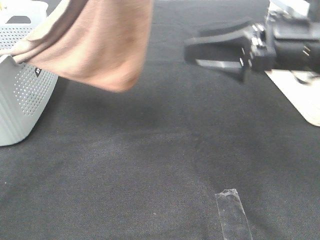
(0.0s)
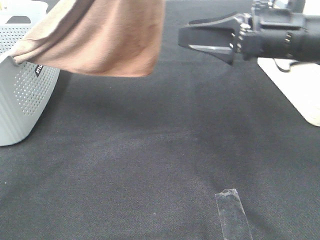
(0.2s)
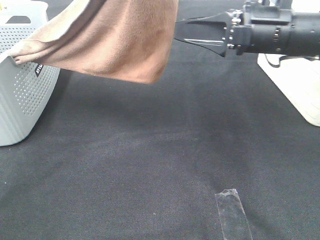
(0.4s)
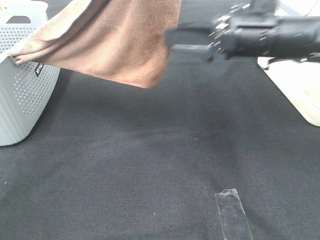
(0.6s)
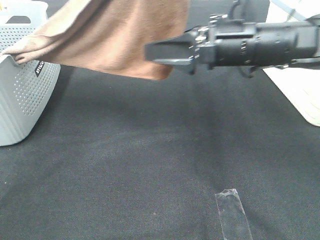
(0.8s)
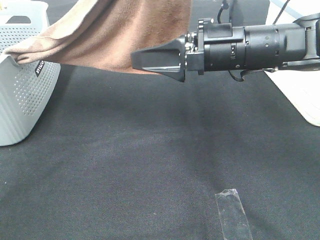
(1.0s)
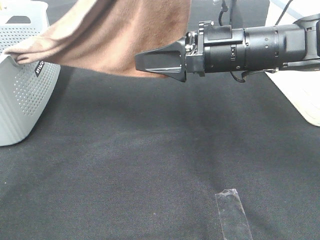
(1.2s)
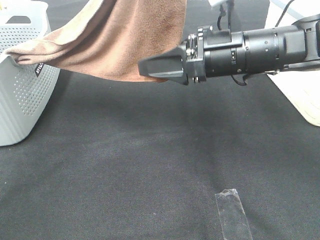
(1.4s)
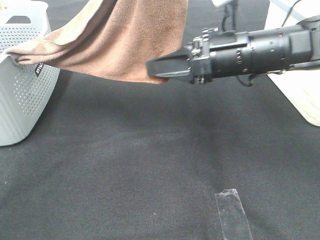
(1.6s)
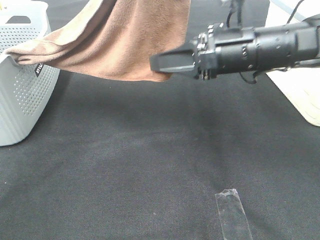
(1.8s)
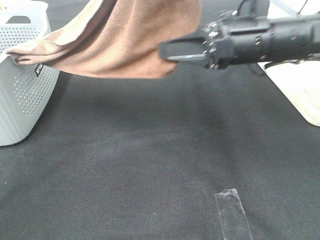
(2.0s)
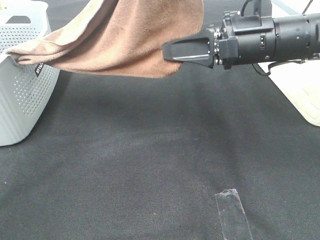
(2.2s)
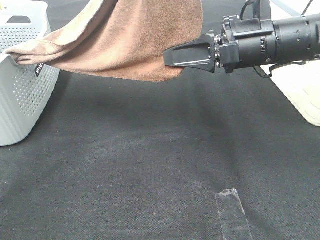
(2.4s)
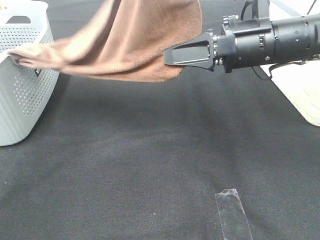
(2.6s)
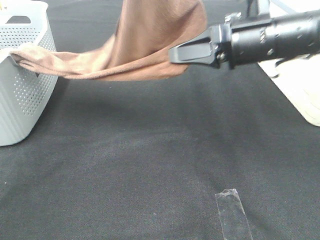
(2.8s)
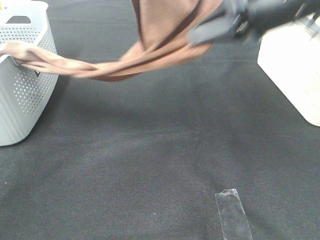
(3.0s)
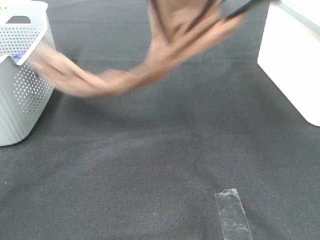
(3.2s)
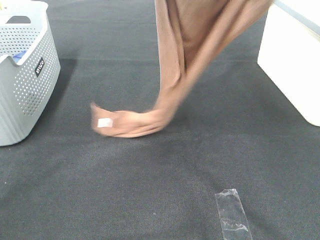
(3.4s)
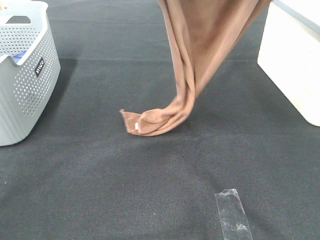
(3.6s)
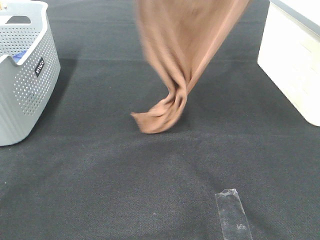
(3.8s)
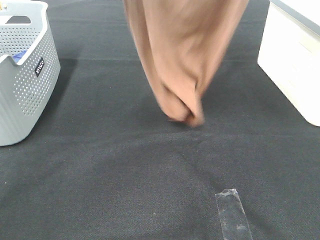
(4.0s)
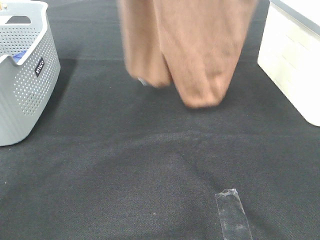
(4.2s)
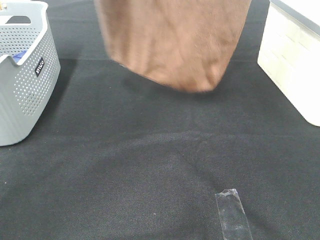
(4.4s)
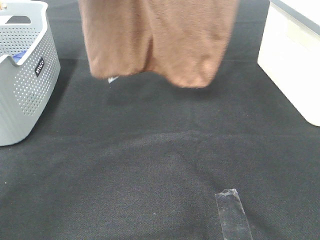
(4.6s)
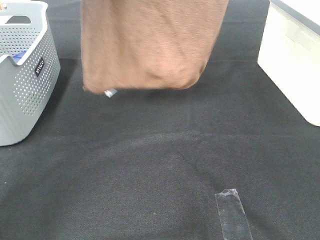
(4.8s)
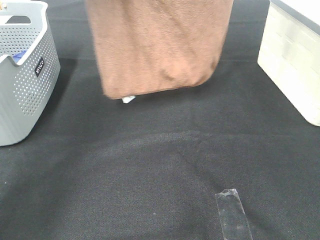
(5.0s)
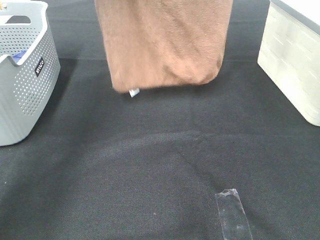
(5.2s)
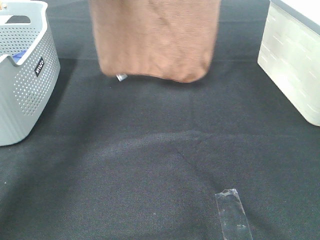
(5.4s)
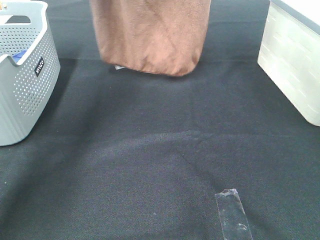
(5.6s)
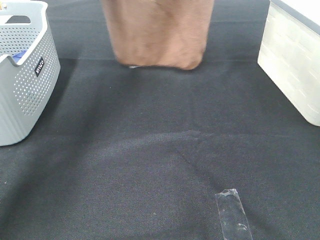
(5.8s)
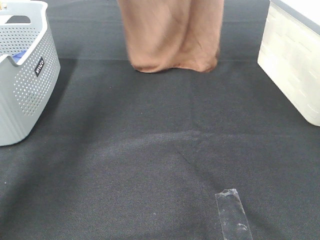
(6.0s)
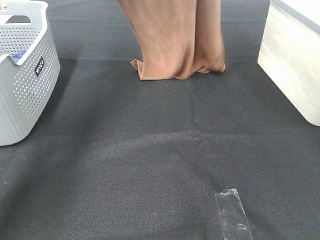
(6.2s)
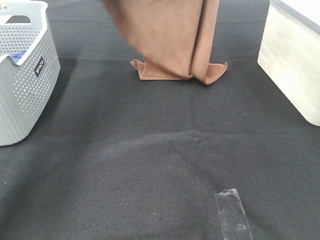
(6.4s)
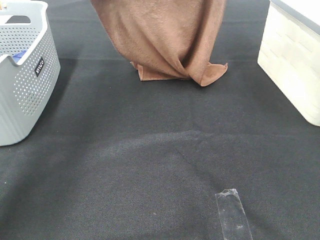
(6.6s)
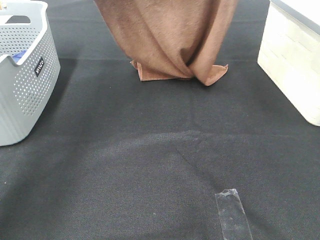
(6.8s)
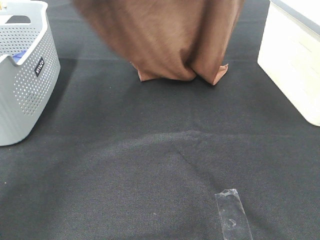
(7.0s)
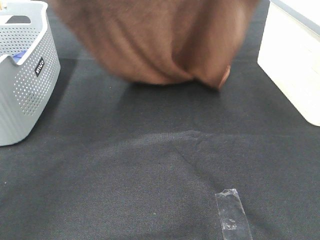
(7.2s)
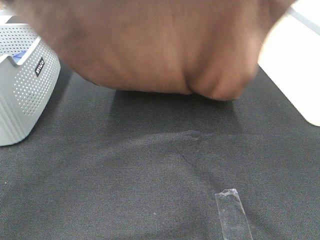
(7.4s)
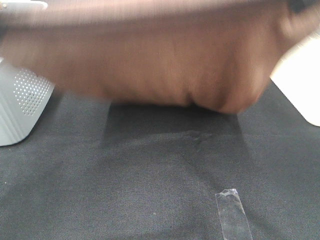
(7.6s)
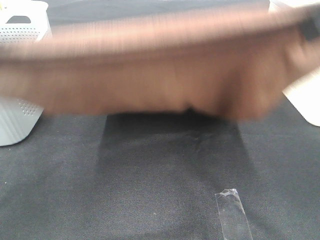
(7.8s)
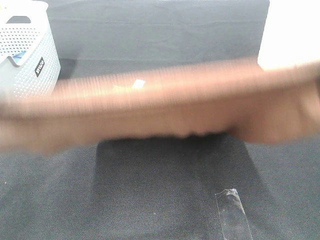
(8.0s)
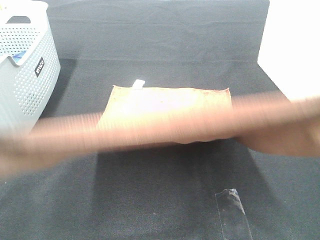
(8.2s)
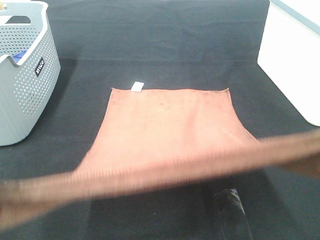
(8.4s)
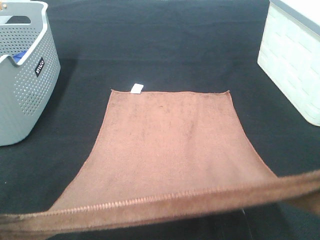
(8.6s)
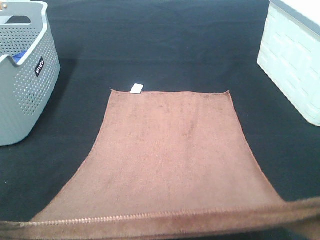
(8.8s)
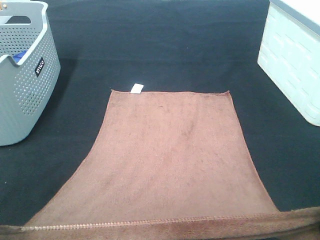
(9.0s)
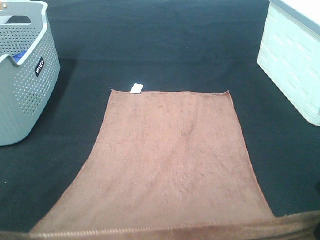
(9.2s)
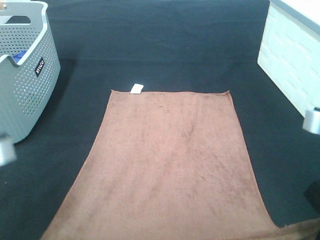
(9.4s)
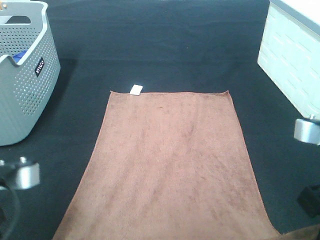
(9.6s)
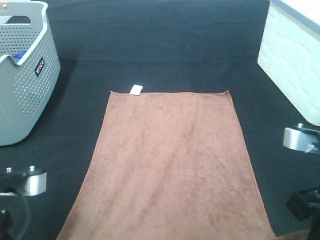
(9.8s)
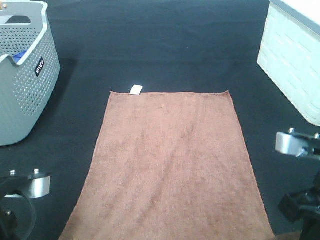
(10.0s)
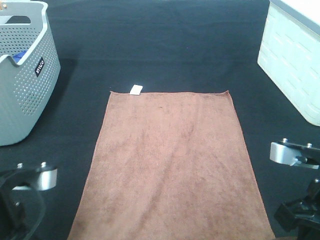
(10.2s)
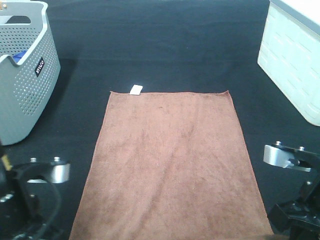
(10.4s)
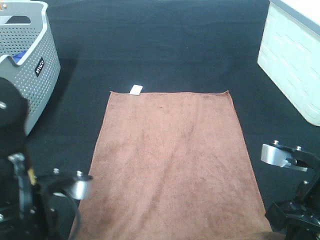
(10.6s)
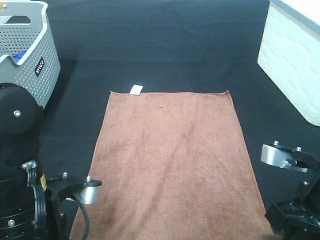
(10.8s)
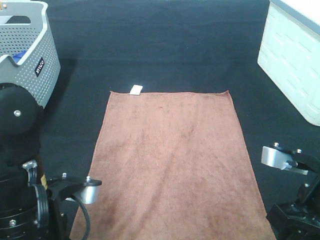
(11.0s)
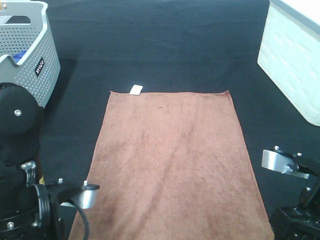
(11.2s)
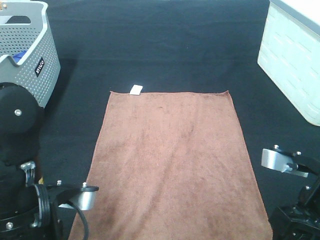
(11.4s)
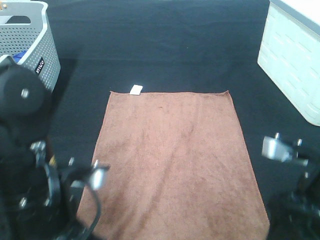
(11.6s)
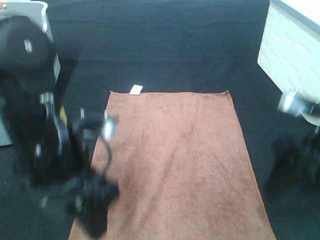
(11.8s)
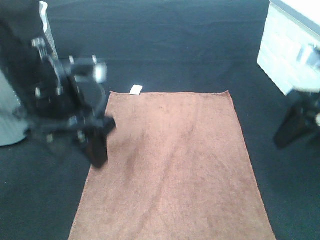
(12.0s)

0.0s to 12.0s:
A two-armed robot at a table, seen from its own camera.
Task of the whole recording: Remove the towel and place it.
Step, 0.0s to 2.2s: Right hand: grab a corner of the brown towel and straighten it.
Step, 2.4s to 7.2s: Left hand: spread the brown towel flat on the table.
Step, 2.4s to 7.2s: Right hand: spread the brown towel flat on the table.
0.0s to 1.6s: The right gripper shifts some 5 cm to the left, and closes.
1.6s to 3.0s: The right gripper goes about 10 cm upward, and closes.
3.0s to 4.4s: The left gripper heads upward, to the left and forward, covering roughly 10 cm; the right gripper moves upward, roughly 25 cm.
4.4s to 6.0s: The right gripper goes approximately 15 cm forward, downward and to the left. The left gripper travels forward and downward by about 20 cm.
6.0s to 7.6s: The grippers both shift backward by roughly 30 cm.
7.6s to 9.0s: The grippers both shift downward and backward by roughly 15 cm.
9.0s to 10.4s: The left gripper moves downward and to the right, some 10 cm, while the right gripper goes some 10 cm downward.
10.4s to 12.0s: Both grippers move forward and upward, roughly 10 cm. The right gripper opens up. Meanwhile the left gripper opens its fingers.

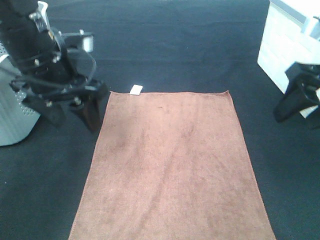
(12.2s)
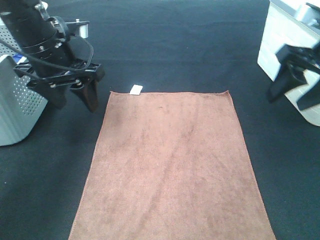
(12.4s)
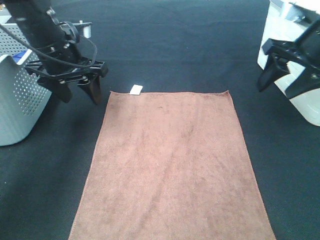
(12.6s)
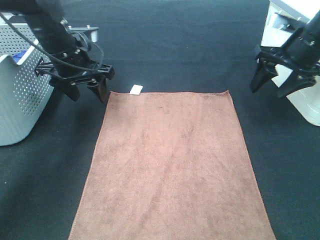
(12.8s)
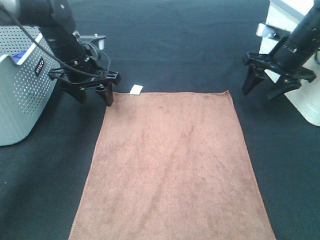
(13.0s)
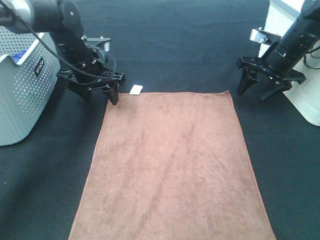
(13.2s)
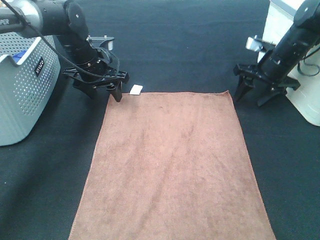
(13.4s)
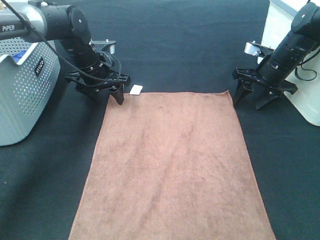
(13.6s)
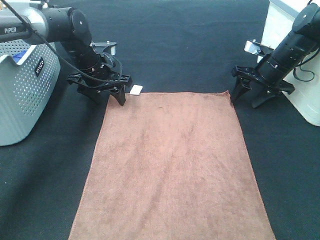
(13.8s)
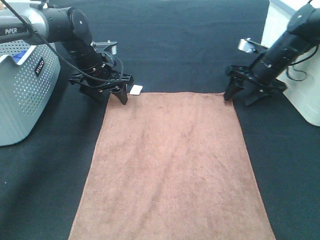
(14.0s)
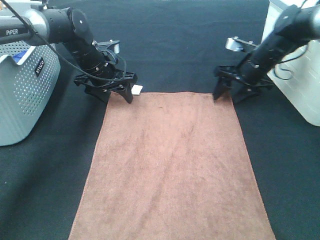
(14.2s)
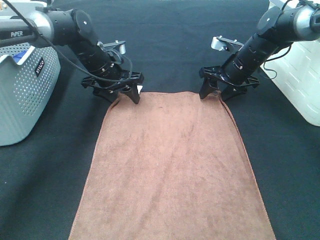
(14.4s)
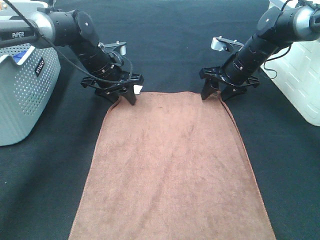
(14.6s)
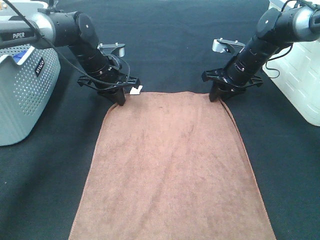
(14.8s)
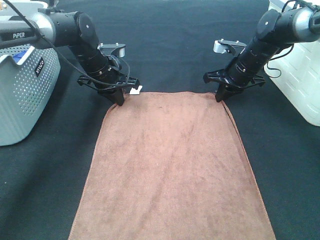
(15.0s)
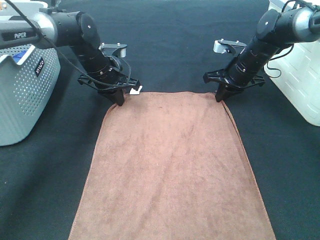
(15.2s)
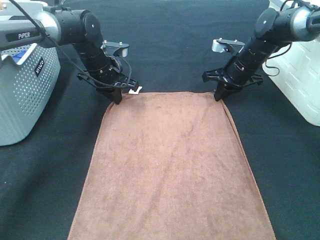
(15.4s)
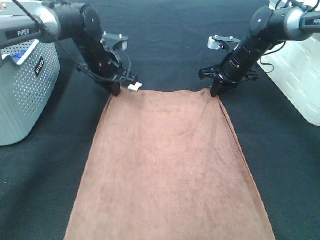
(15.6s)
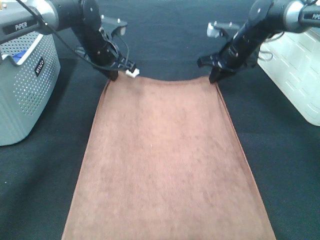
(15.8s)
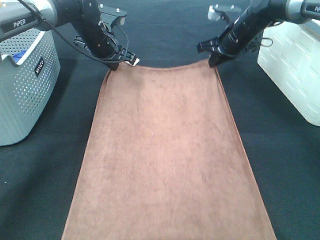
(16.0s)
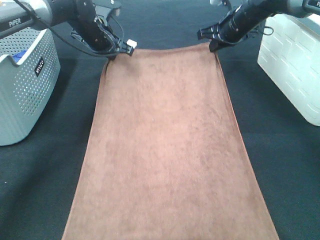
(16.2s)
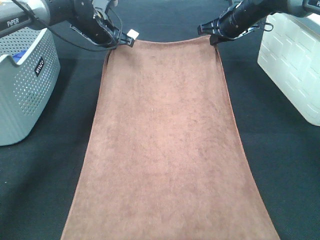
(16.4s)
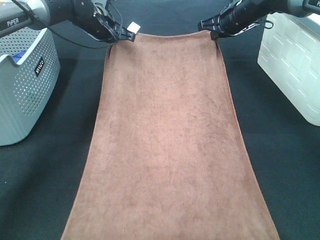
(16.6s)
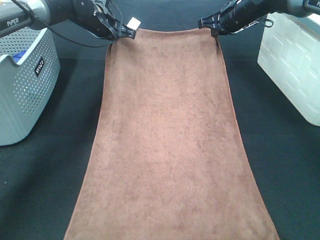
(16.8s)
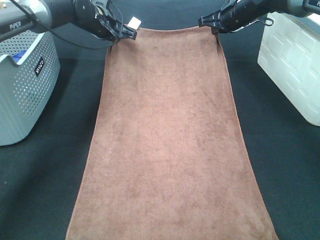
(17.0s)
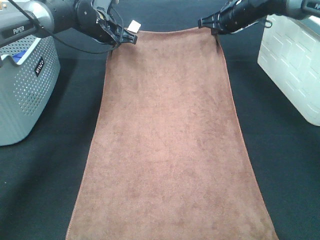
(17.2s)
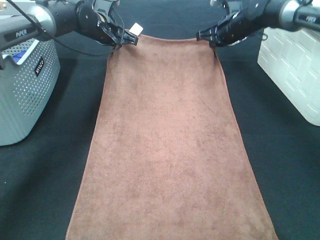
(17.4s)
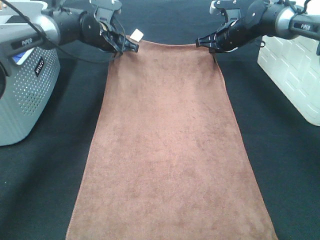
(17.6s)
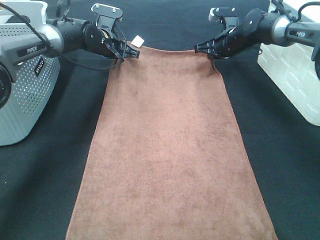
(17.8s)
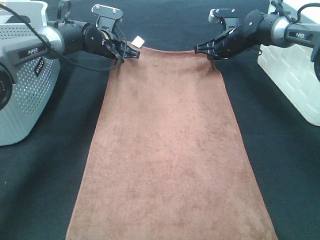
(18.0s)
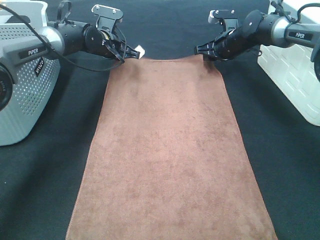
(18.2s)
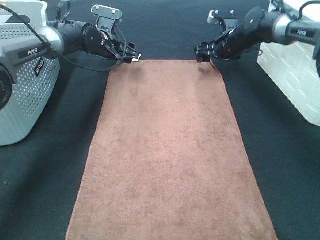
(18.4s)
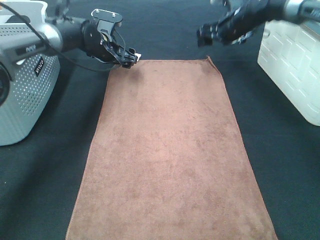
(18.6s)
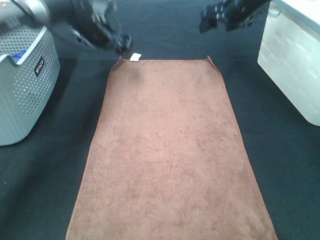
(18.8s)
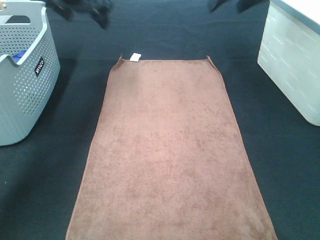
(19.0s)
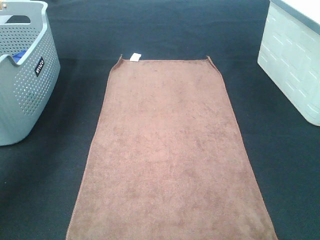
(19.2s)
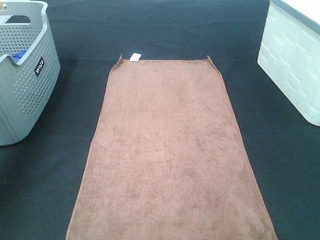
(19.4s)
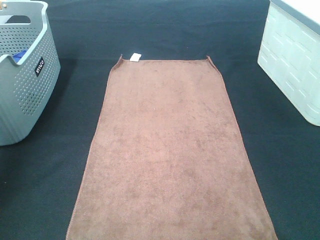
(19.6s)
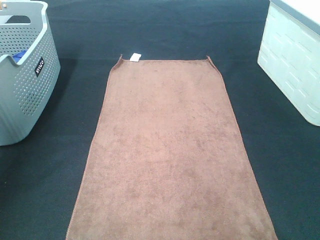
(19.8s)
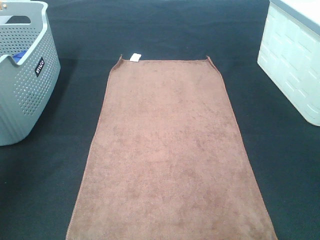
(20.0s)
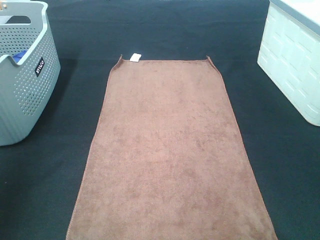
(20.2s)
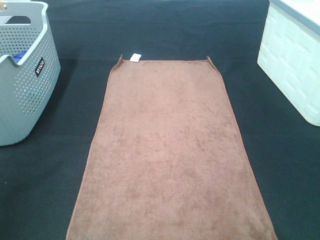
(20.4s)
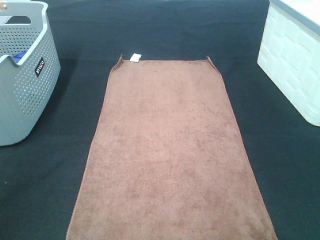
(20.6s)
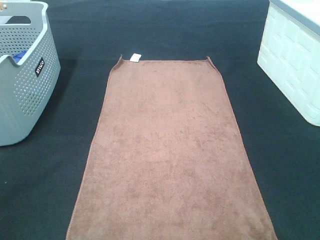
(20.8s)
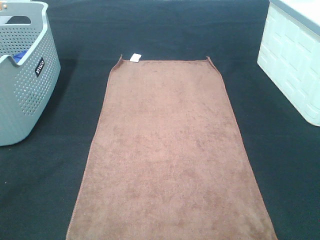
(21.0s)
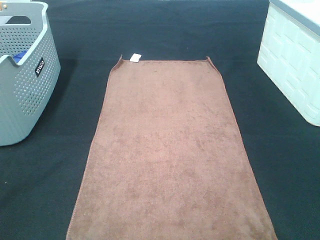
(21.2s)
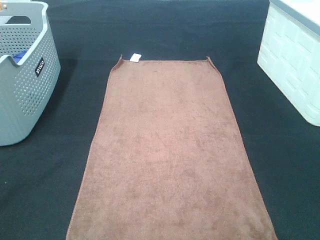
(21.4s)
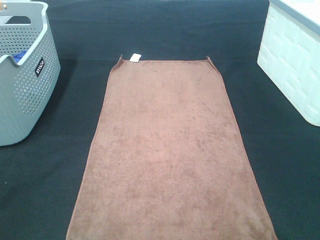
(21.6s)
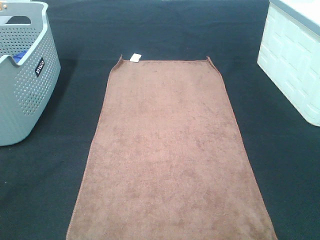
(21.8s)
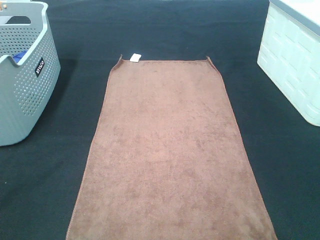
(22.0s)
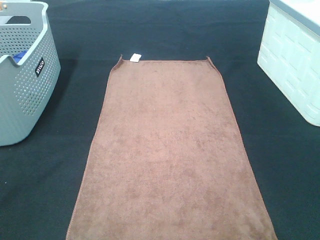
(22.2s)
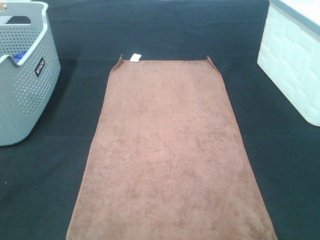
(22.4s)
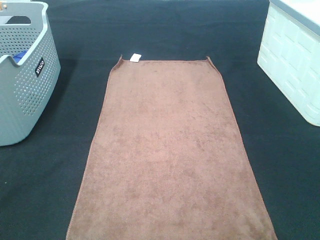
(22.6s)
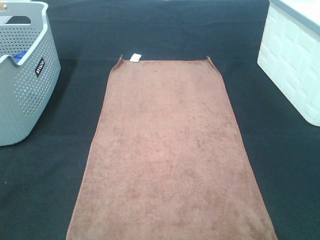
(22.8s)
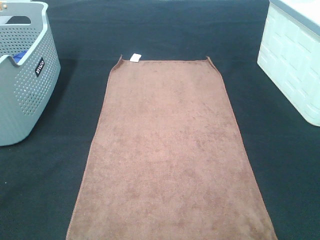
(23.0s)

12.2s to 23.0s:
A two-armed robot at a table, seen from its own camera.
Task of the whole recording: Remove the towel and place it.
12.2s to 13.8s: The grippers both shift forward and downward by roughly 25 cm.
13.8s to 15.2s: The left gripper closes, while the right gripper heads to the left, covering approximately 5 cm, and closes up.
15.2s to 16.8s: Both grippers move upward and forward, about 10 cm.
16.8s to 18.4s: The two grippers go about 5 cm downward. The right gripper opens. Meanwhile the left gripper opens.
18.4s to 20.0s: The right gripper goes approximately 50 cm backward and upward. The left gripper travels backward, upward and to the left by approximately 50 cm.
20.0s to 21.4s: The left gripper travels backward and downward by some 25 cm.
